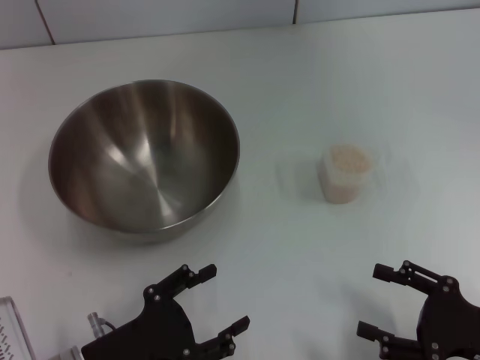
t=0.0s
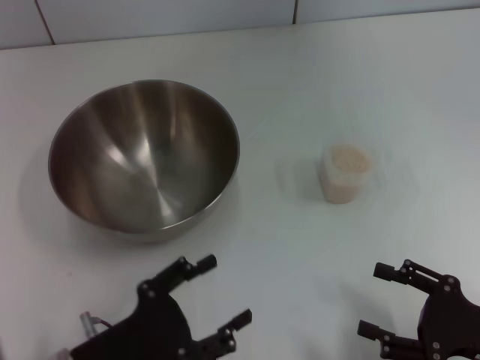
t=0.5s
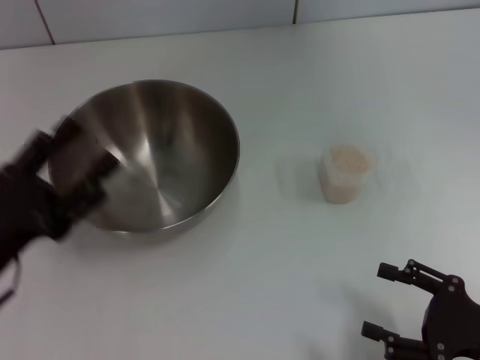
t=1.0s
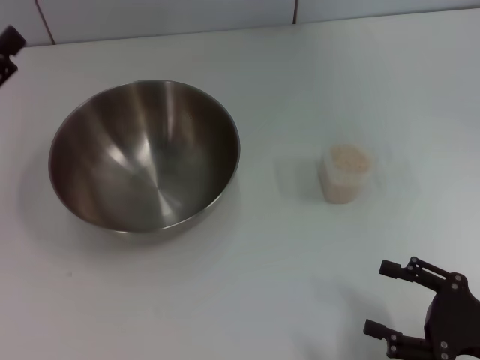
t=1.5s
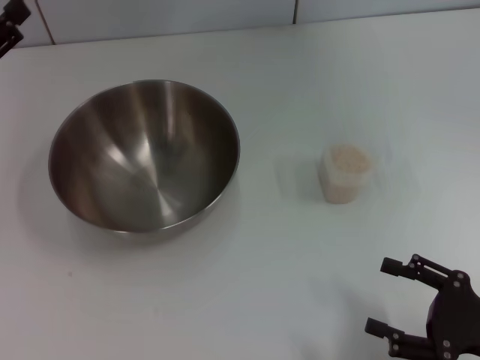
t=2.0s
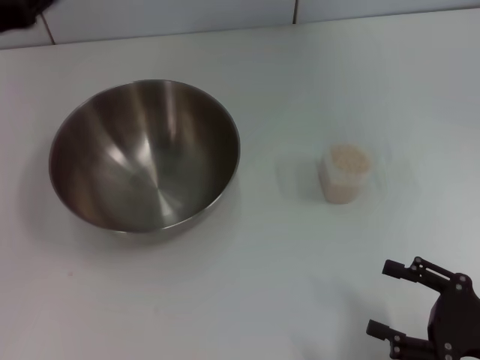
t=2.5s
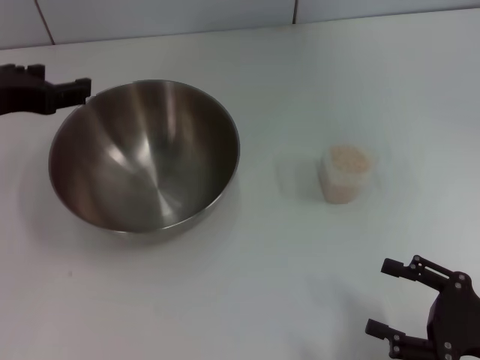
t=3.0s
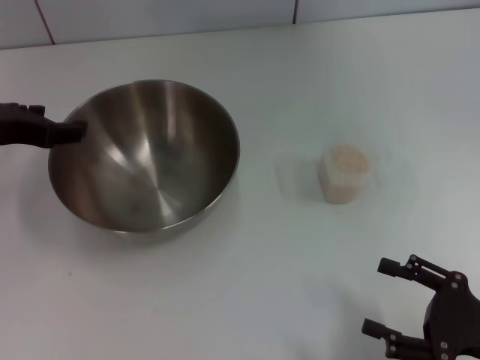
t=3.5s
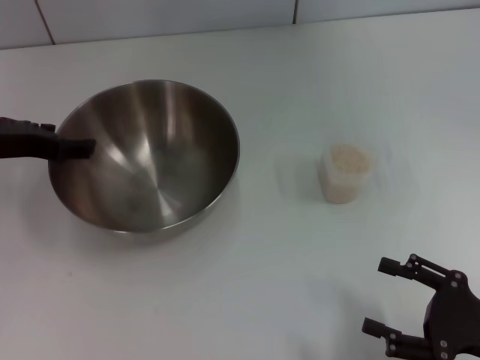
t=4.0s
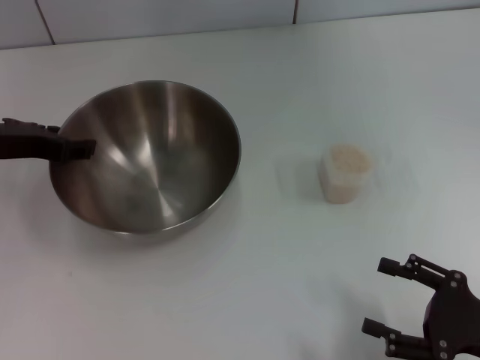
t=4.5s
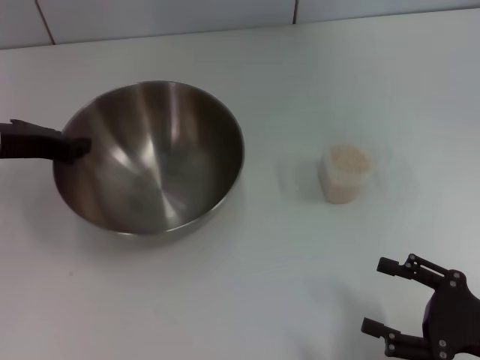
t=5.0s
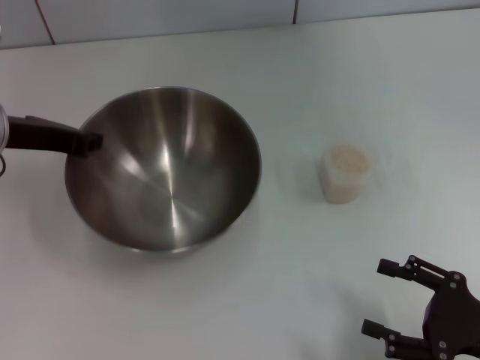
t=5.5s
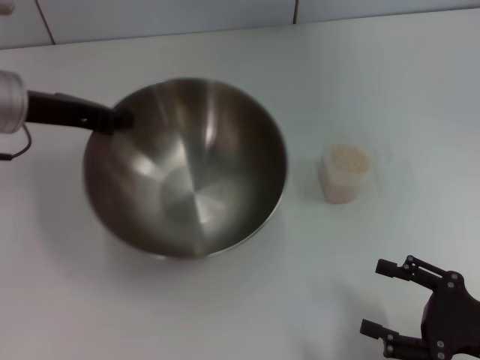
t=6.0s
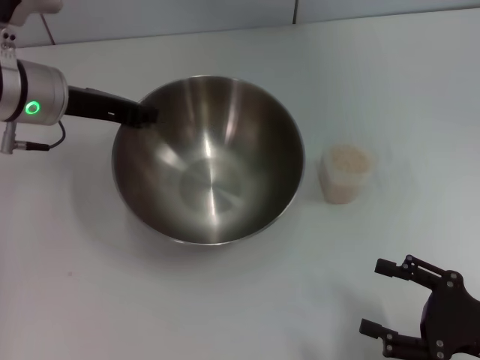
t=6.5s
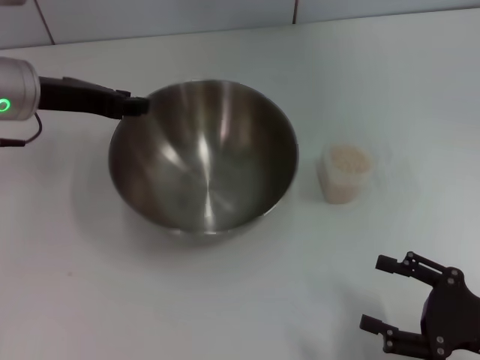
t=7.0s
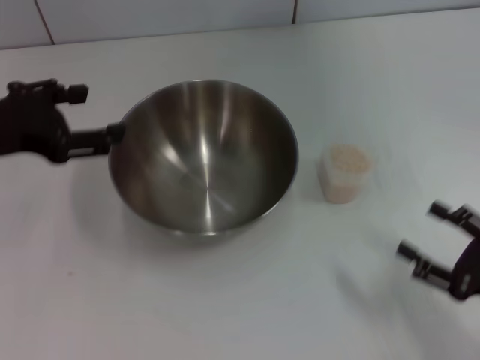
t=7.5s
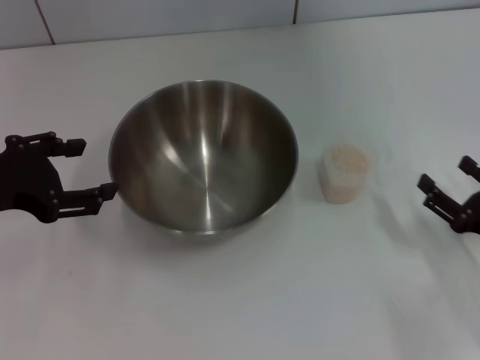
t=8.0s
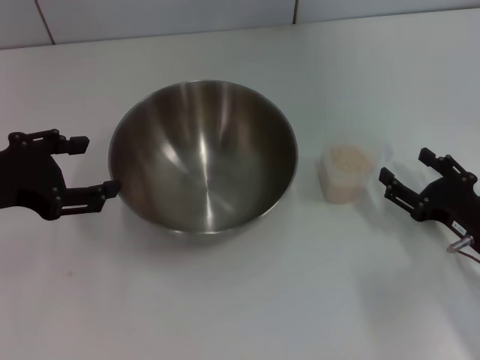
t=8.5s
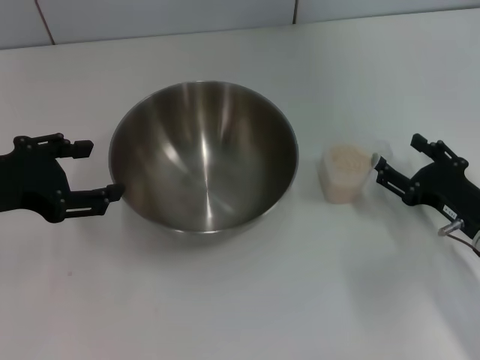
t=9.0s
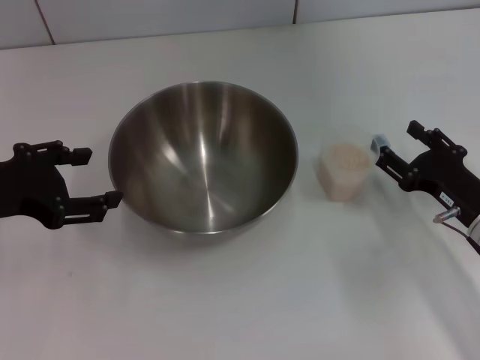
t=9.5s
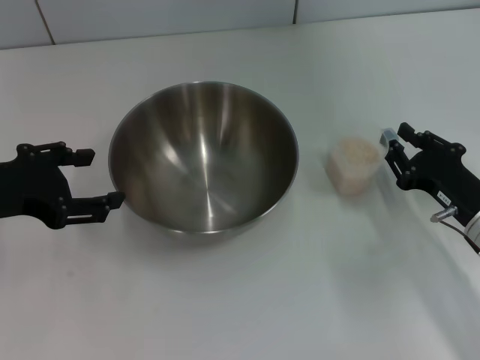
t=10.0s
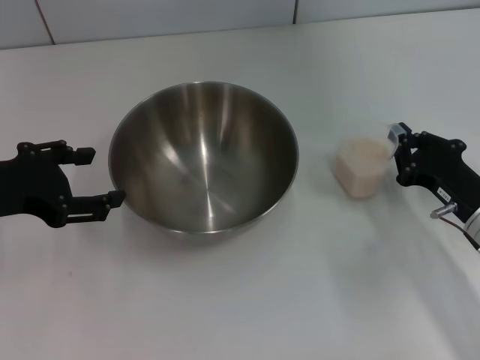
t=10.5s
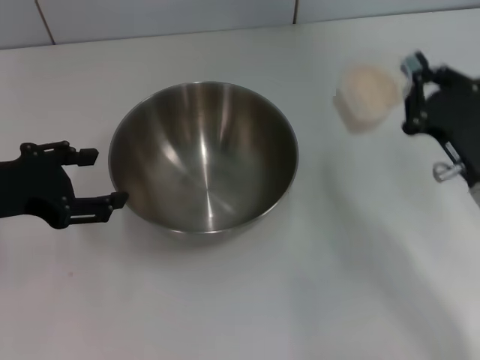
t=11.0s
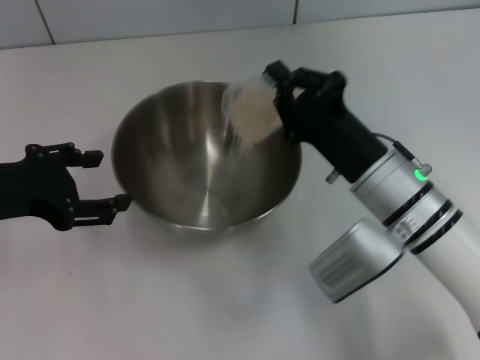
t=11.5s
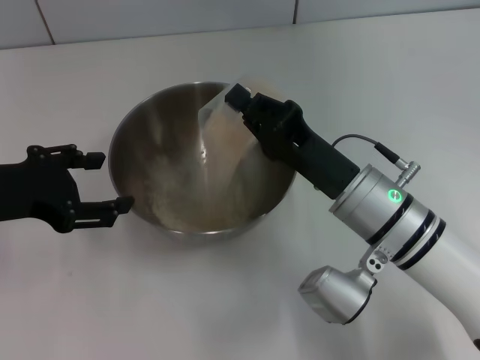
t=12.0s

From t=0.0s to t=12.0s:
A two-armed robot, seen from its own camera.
Task of the whole recording: Place the bowl in the middle of the table with one hand and pour the rice from the grain cup into it with the other hand.
Step, from t=0.0s to t=5.5s: Pick up the bowl with the left gripper.
Step, from t=6.0s to t=7.0s: Place the bowl in the center of view with the left gripper.
Step, from t=7.5s to t=10.5s: Pick up the cup with rice in it with the right gripper.
From t=0.0s to t=2.0s: The left gripper goes some 25 cm forward, upward and to the left.
From t=2.0s to t=4.0s: The left gripper travels to the right by roughly 5 cm.
From t=4.0s to t=6.0s: The left gripper closes.
From t=6.0s to t=8.0s: The right gripper heads forward, covering some 5 cm. Meanwhile the left gripper moves backward, roughly 10 cm, and opens its fingers.
From t=8.0s to t=10.0s: The right gripper goes about 5 cm forward, and closes up.
From t=10.0s to t=12.0s: The right gripper moves to the left, approximately 15 cm, and closes its fingers.

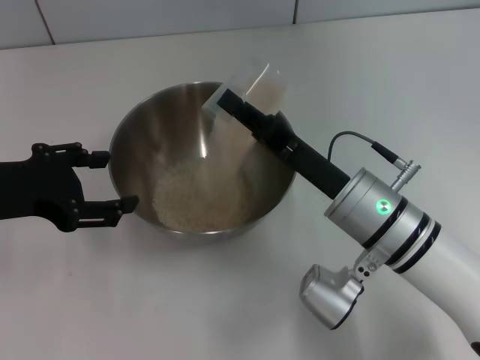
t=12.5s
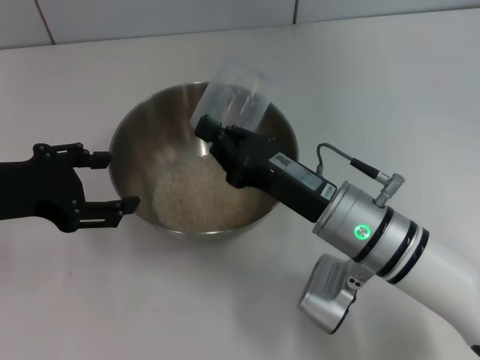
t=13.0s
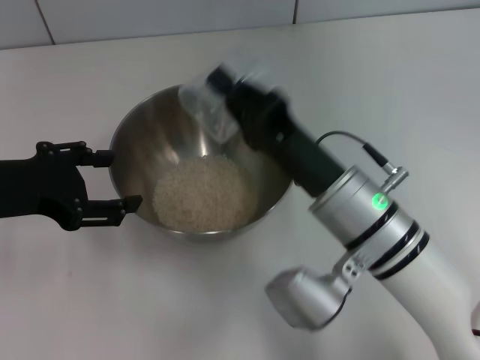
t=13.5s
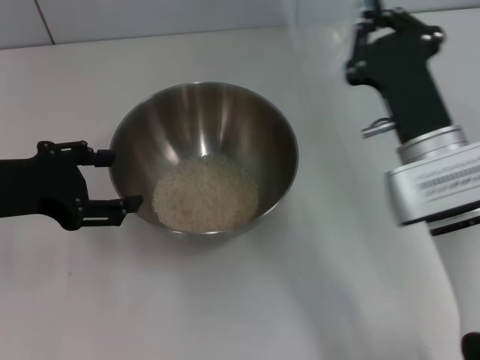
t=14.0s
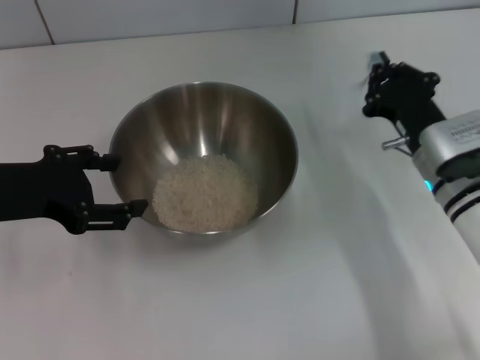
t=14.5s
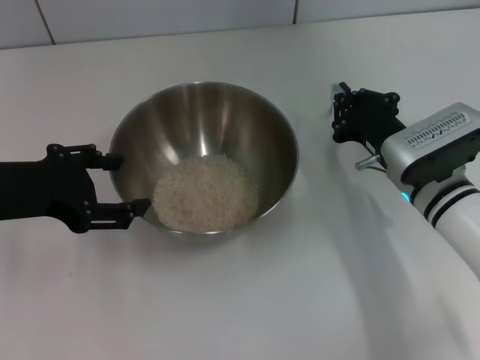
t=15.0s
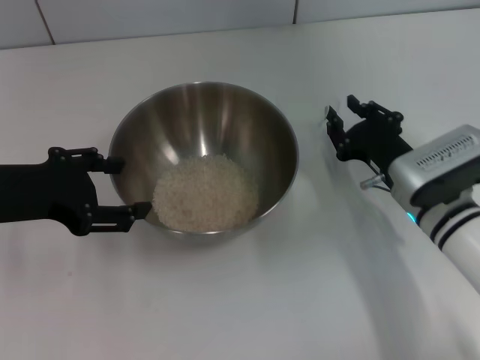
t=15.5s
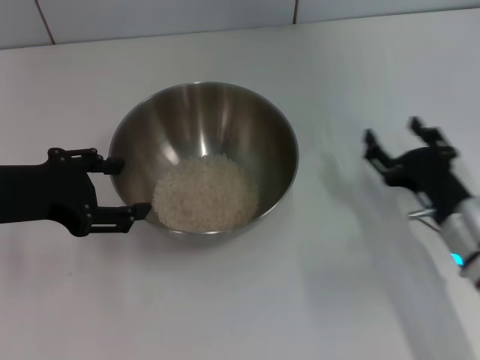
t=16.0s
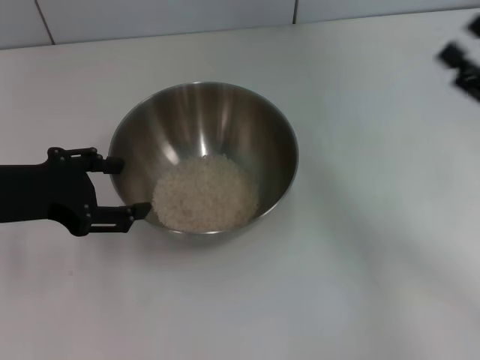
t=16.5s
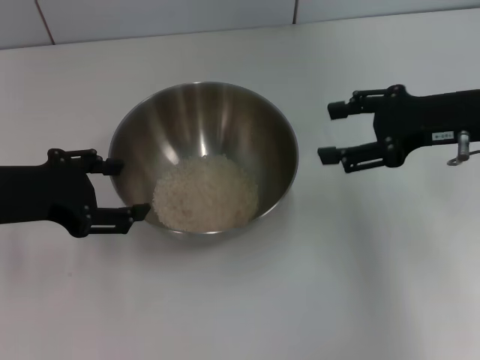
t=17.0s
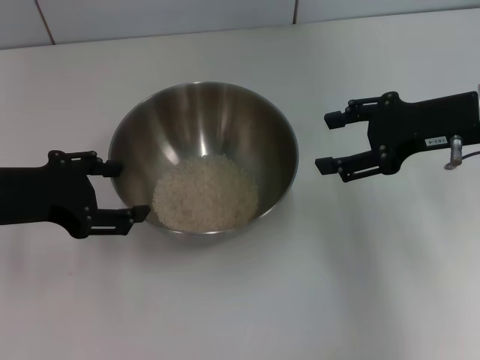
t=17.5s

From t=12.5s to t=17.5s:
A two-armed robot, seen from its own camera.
Task of the whole recording: Place the bowl in the middle of the table with one hand and pour the rice from the grain cup into it with the other hand.
Step, from t=12.5s to t=14.0s: Pour the rice from the cup into the bowl with the right gripper.
Step, from t=14.5s to t=15.5s: Place the cup on the table with the right gripper.
From t=12.5s to t=15.0s: The right gripper heads to the right and forward, covering some 10 cm.
From t=15.0s to t=17.5s: The right gripper travels upward and to the right by roughly 15 cm, and opens.
